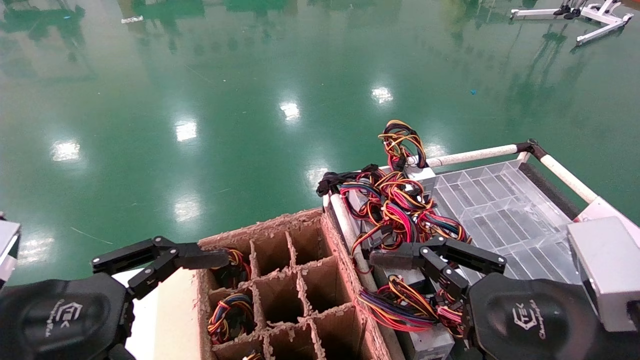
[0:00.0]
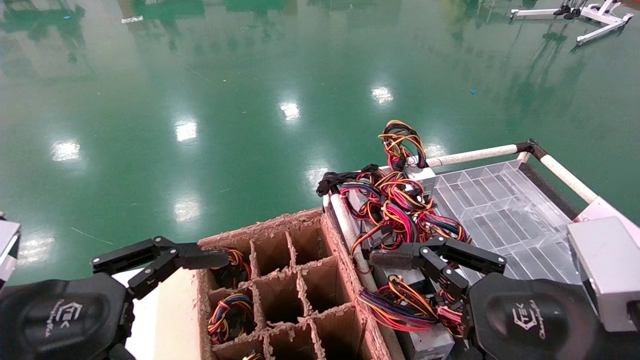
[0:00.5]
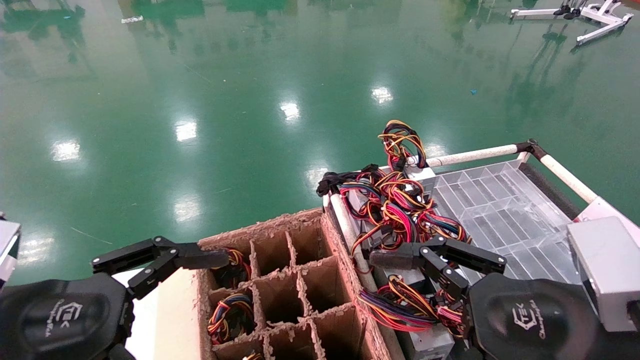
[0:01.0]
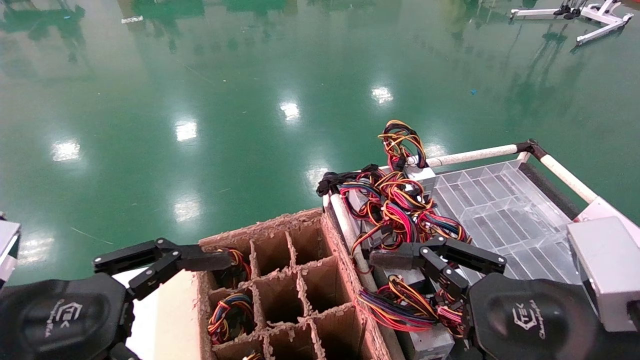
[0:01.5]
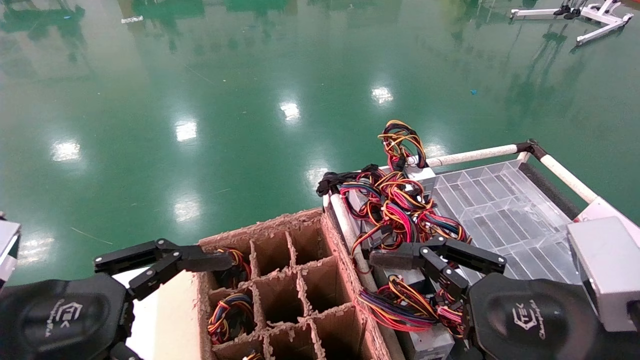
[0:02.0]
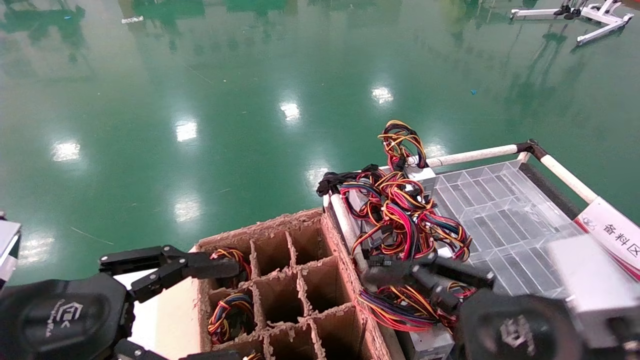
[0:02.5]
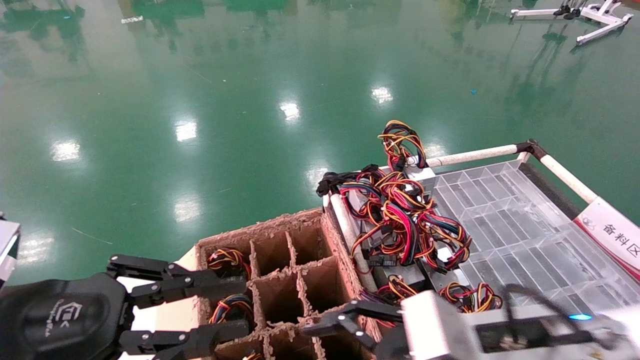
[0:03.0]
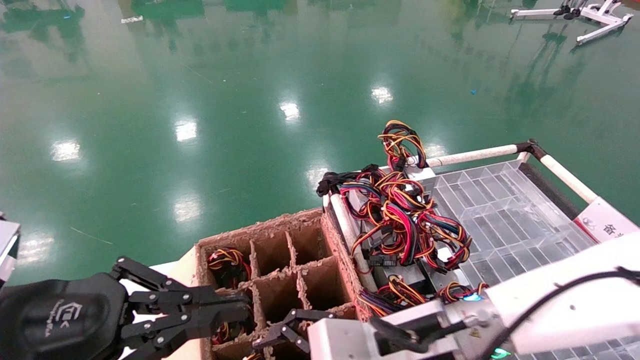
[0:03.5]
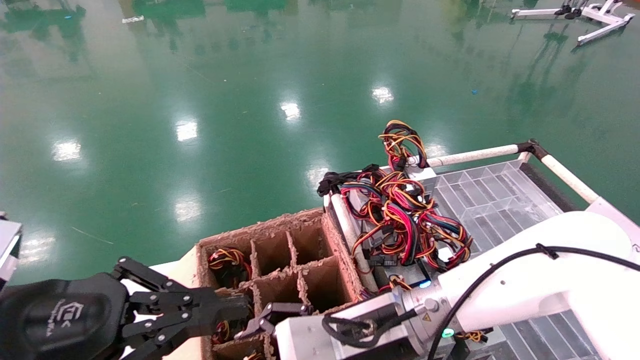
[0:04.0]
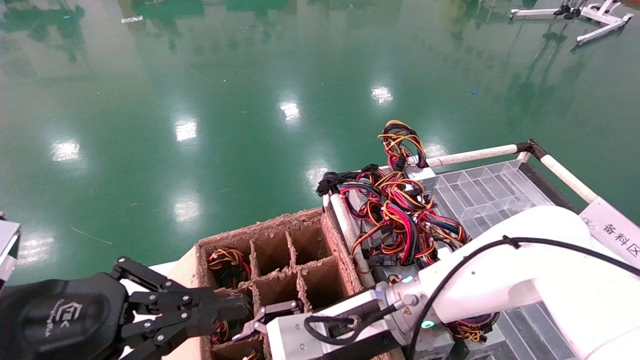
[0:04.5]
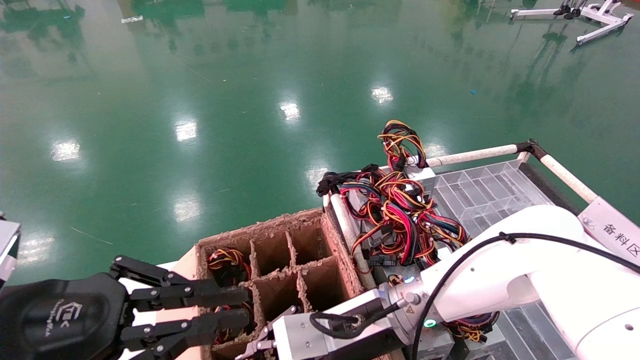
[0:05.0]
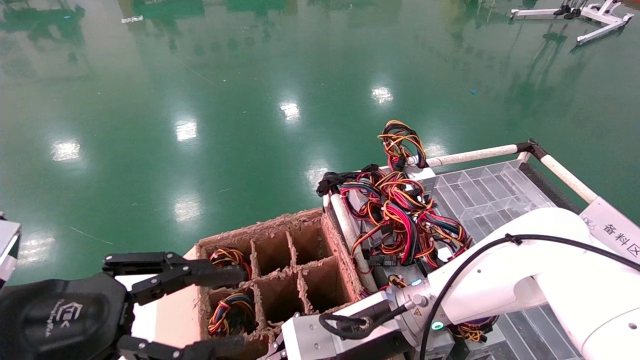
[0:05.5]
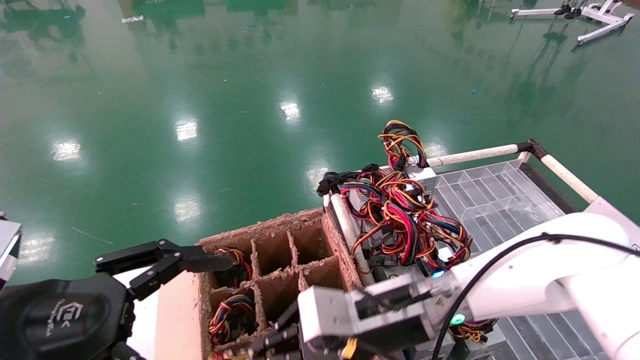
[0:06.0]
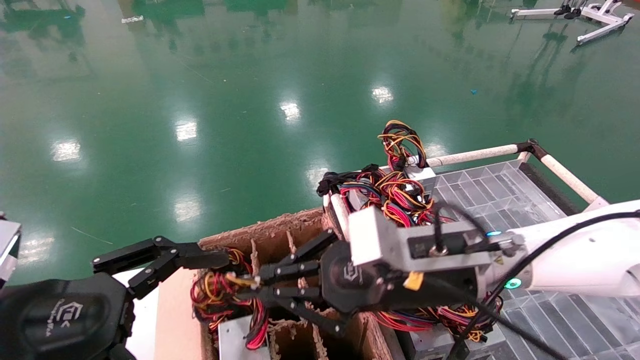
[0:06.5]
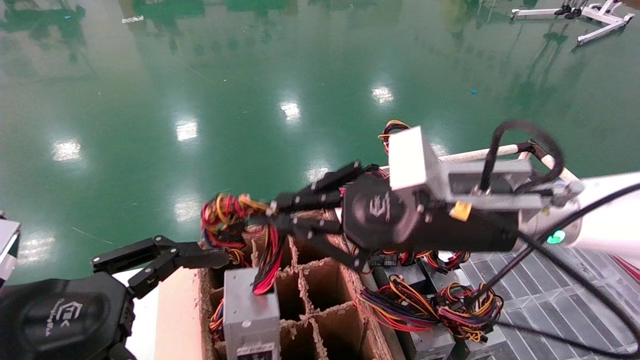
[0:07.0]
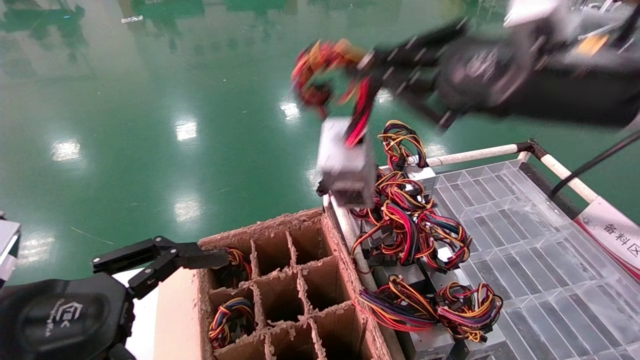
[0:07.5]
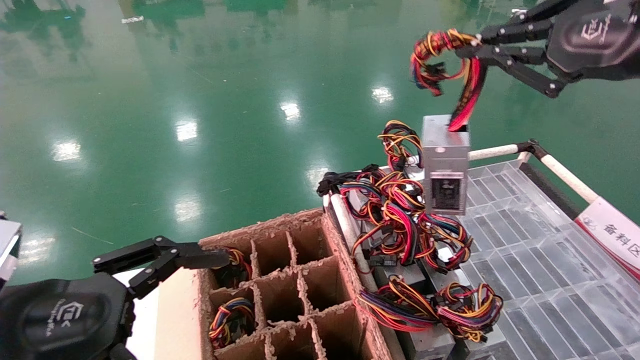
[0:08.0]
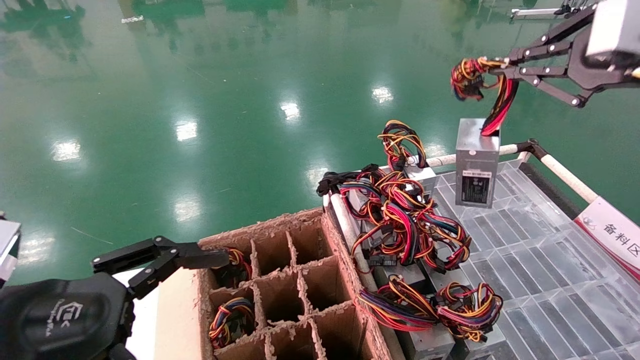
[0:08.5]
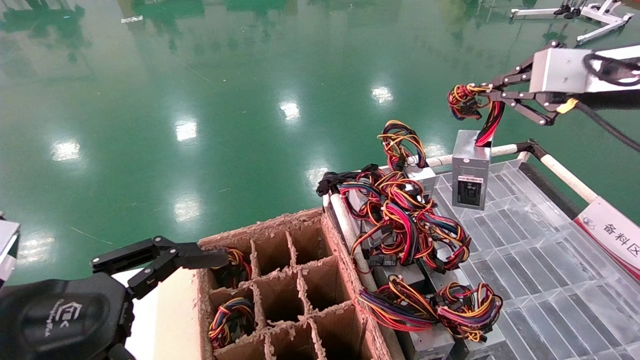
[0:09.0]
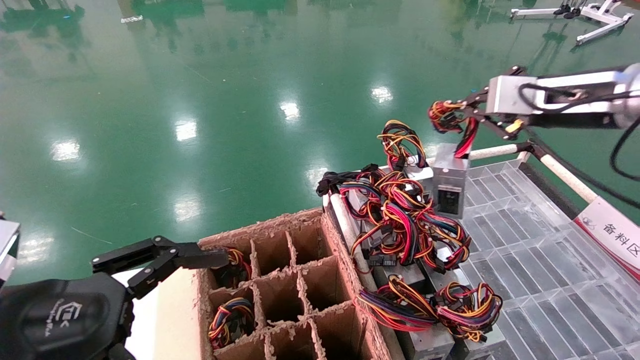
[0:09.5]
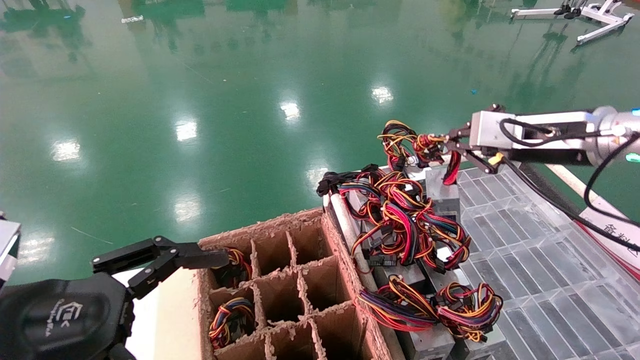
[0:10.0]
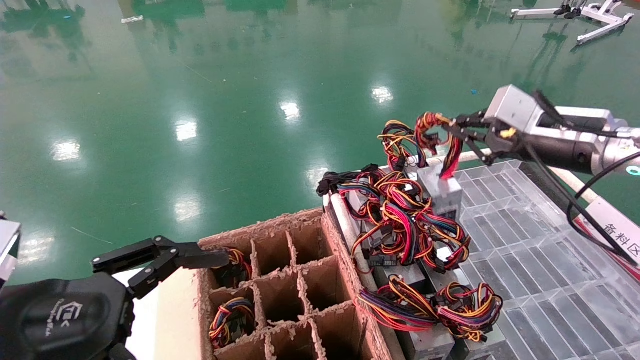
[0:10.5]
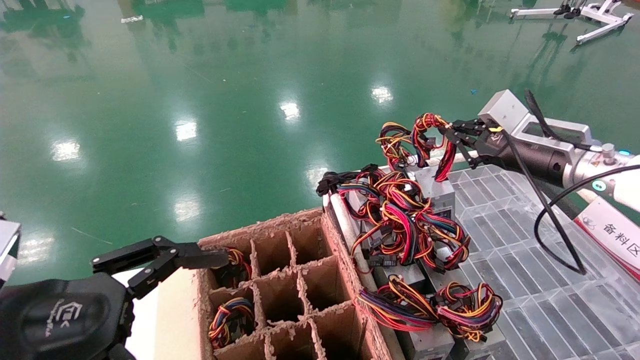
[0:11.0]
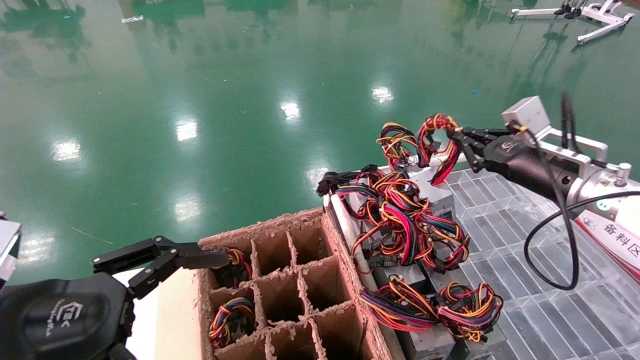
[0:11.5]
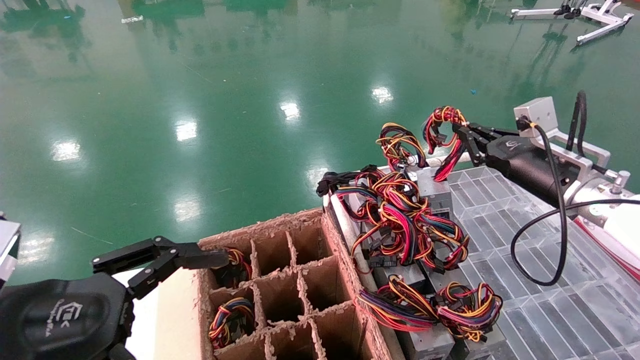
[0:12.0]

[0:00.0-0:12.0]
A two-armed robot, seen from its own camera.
Step, 0:02.0 to 0:05.5: Grab and lift the power supply from the large box.
0:00.0 to 0:02.0: Neither gripper changes place.
0:02.0 to 0:04.0: The right gripper shifts about 20 cm to the left, forward and downward. The left gripper closes.
0:04.0 to 0:06.0: The left gripper opens up, while the right gripper closes its fingers.
0:06.0 to 0:08.0: The right gripper travels upward and to the right by approximately 35 cm.
0:08.0 to 0:10.0: The right gripper heads forward and downward, covering about 15 cm.
0:10.0 to 0:12.0: The right gripper heads downward, covering some 10 cm.

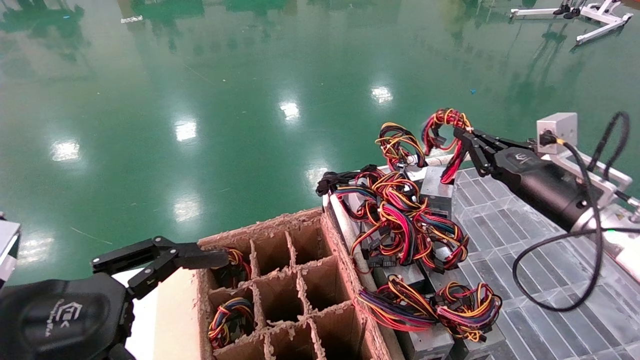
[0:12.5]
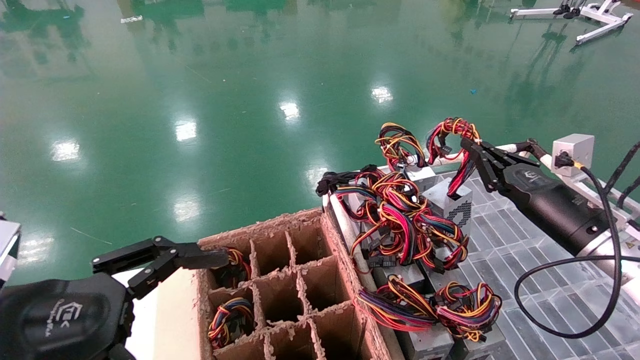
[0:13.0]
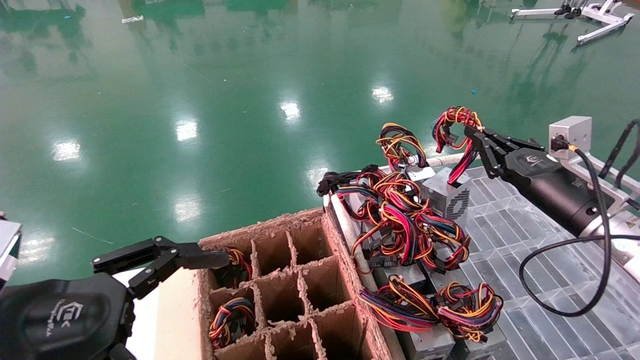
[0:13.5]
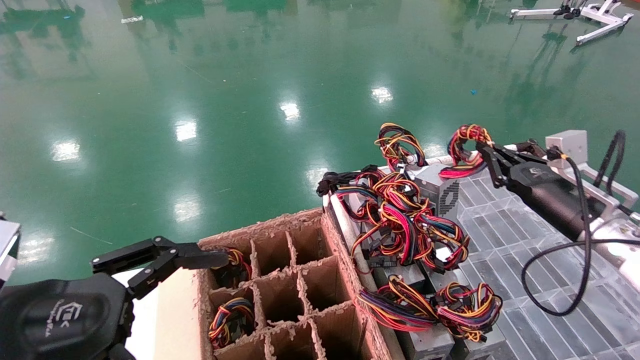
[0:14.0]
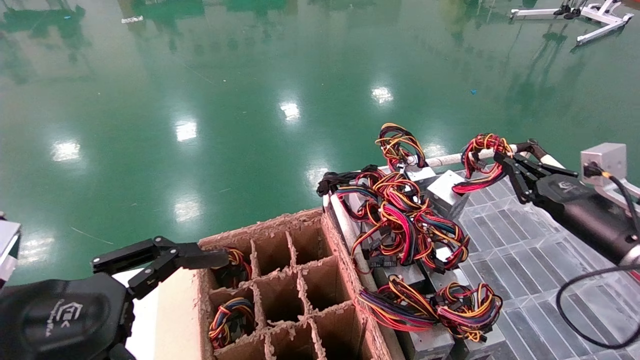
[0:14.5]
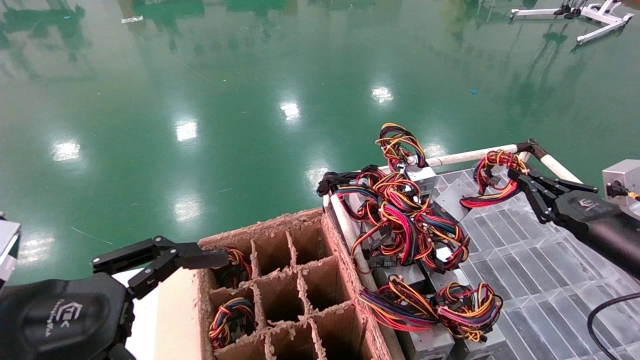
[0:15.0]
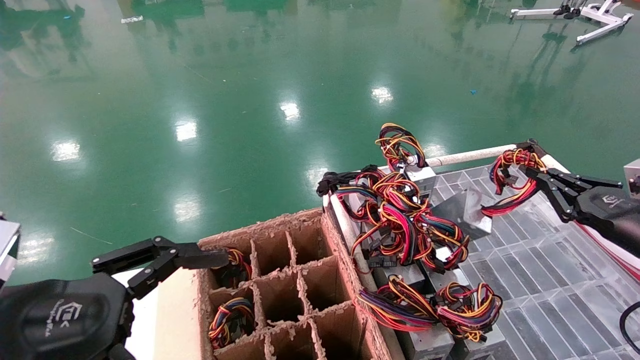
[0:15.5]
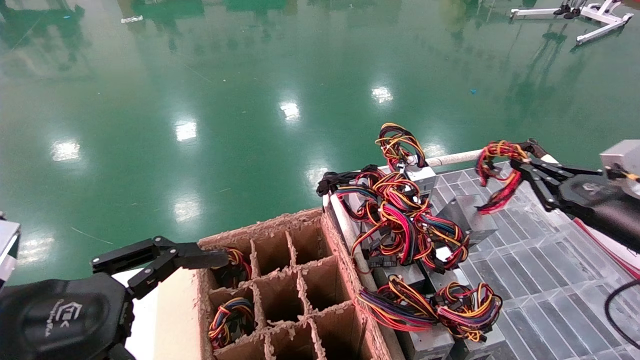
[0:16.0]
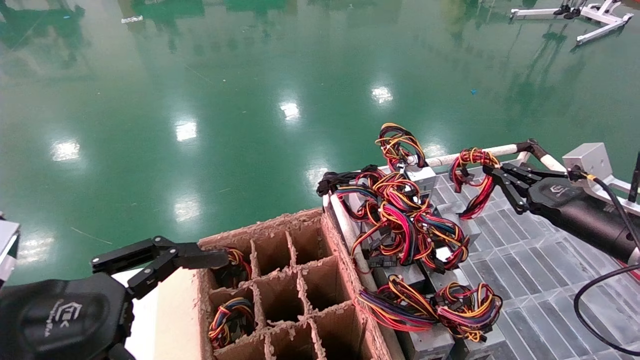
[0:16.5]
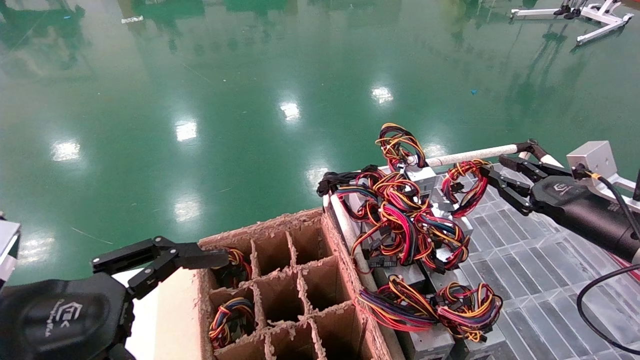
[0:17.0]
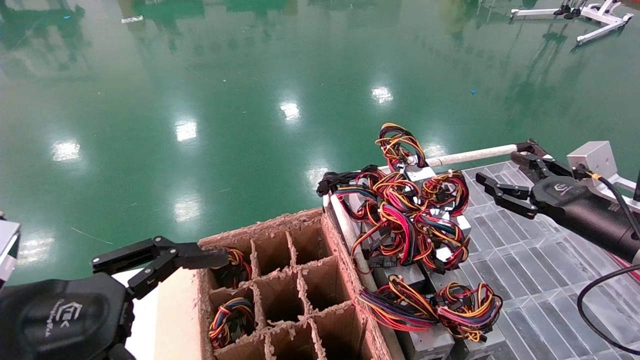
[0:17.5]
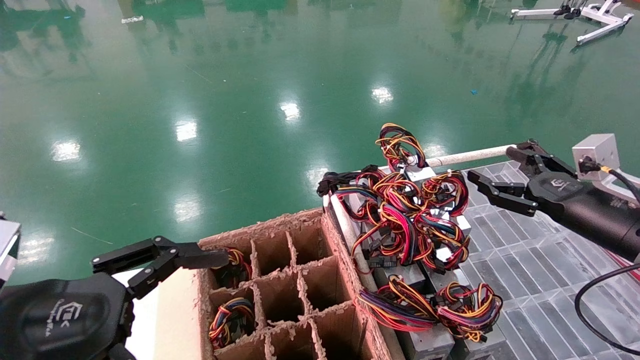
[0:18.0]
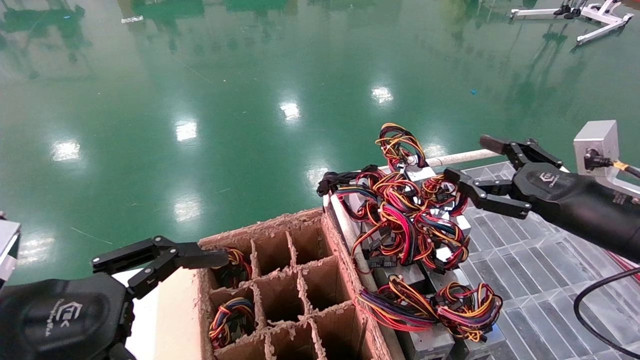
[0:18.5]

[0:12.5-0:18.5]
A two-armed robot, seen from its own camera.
Step, 0:12.5 to 0:16.5: Place the power supply on the operating table.
0:12.5 to 0:14.5: The right gripper is displaced to the right by some 5 cm.
0:14.5 to 0:16.5: The grippers move only a little.
0:16.5 to 0:18.5: The right gripper goes roughly 5 cm to the left and backward, and opens.
